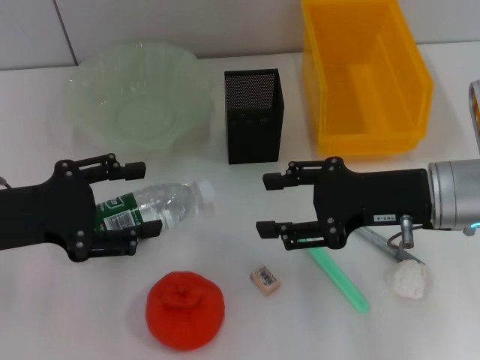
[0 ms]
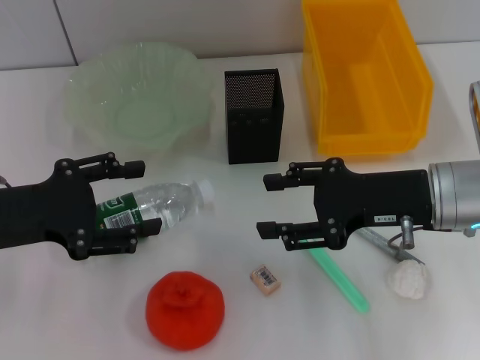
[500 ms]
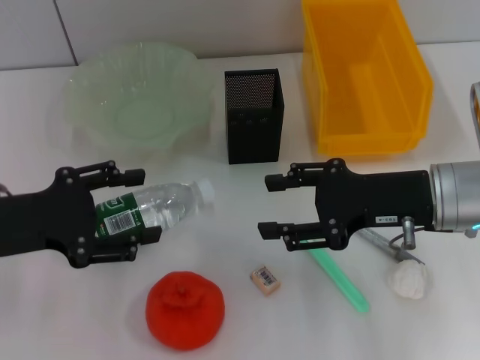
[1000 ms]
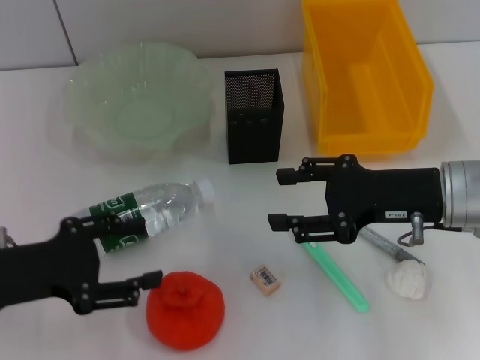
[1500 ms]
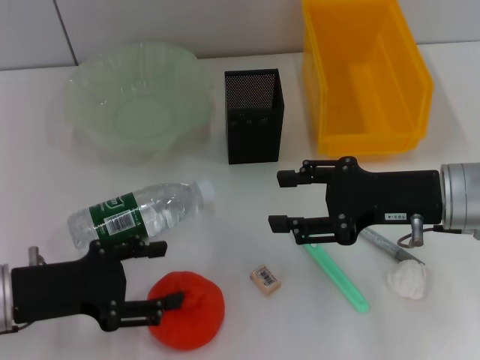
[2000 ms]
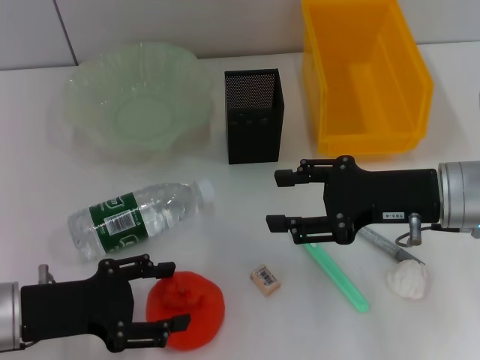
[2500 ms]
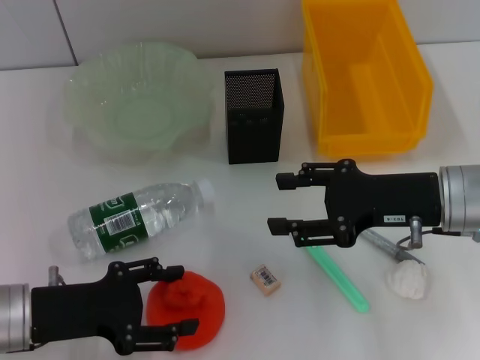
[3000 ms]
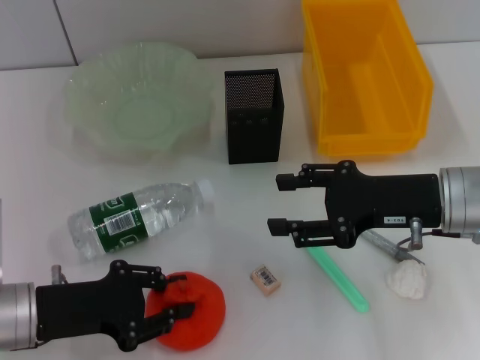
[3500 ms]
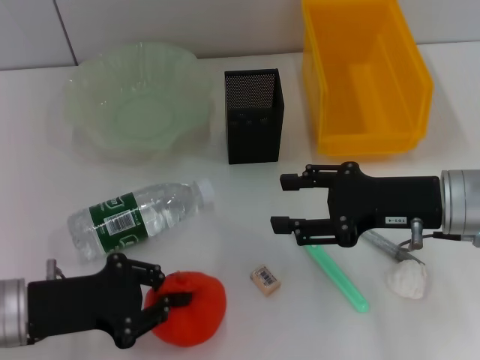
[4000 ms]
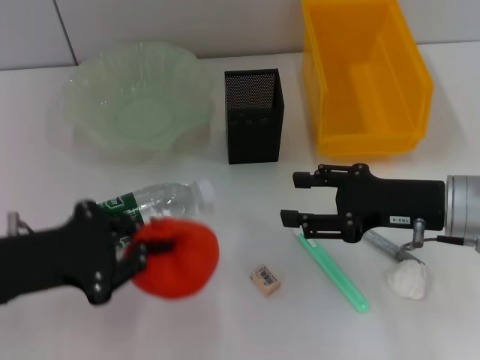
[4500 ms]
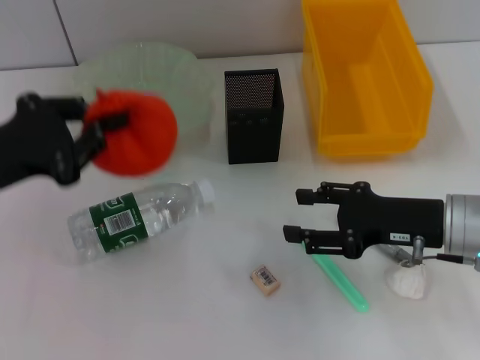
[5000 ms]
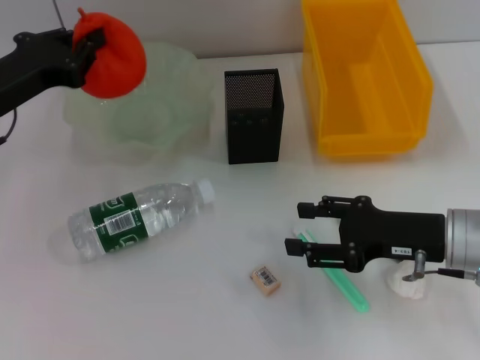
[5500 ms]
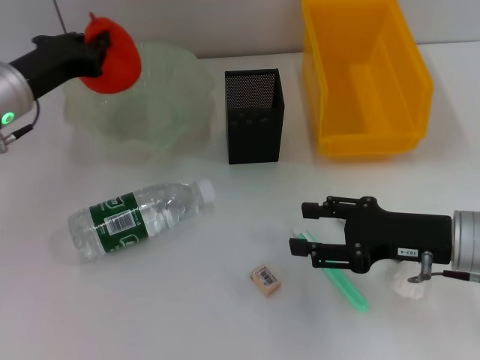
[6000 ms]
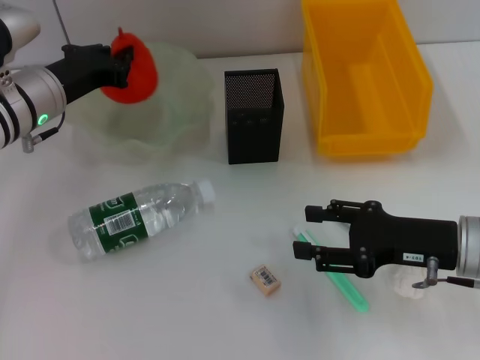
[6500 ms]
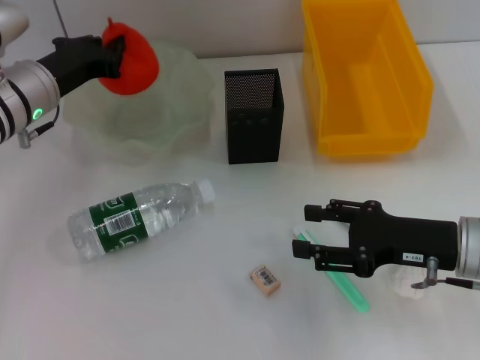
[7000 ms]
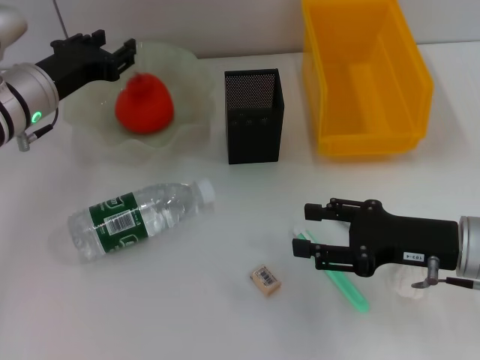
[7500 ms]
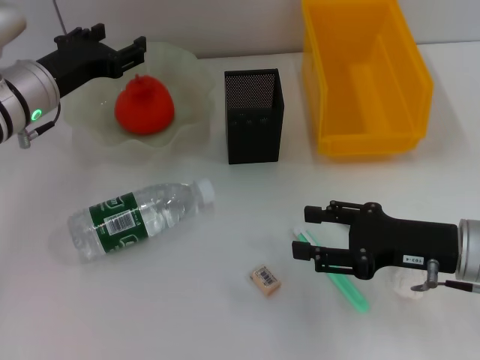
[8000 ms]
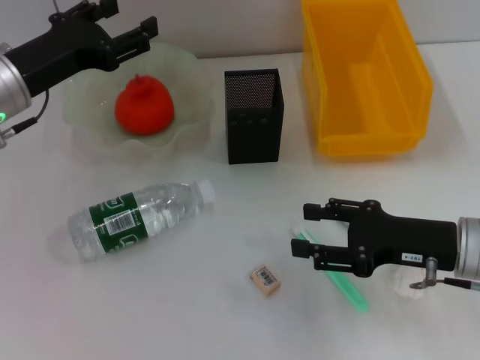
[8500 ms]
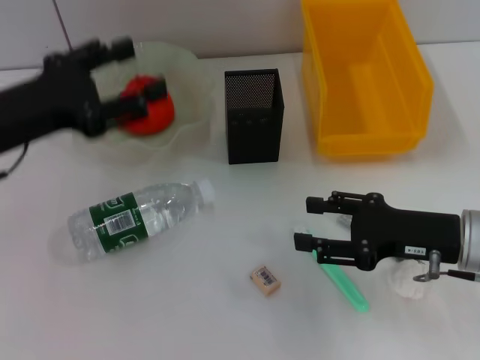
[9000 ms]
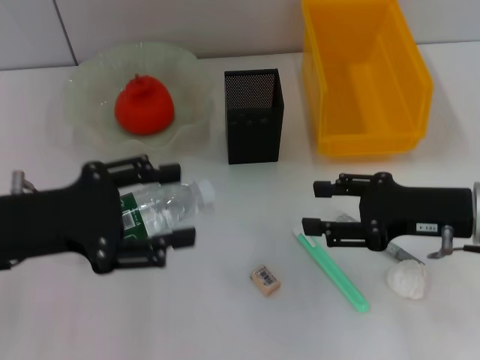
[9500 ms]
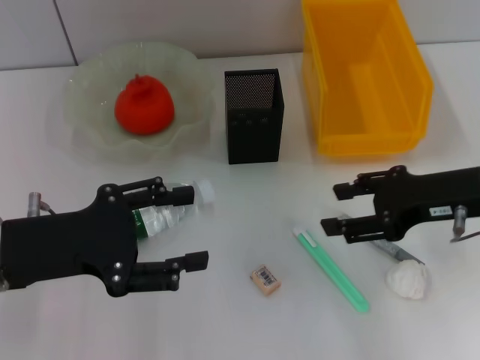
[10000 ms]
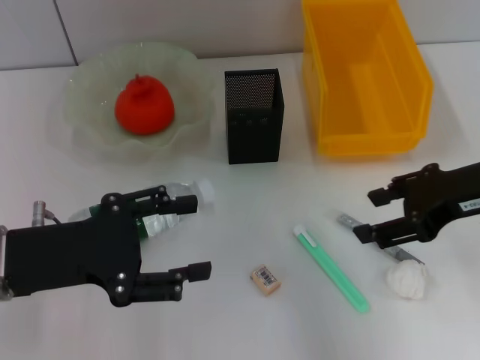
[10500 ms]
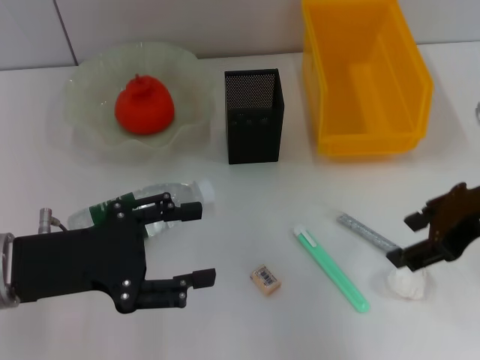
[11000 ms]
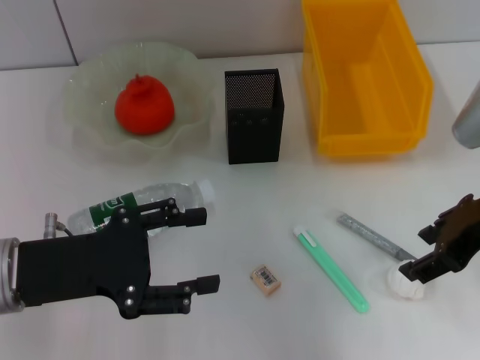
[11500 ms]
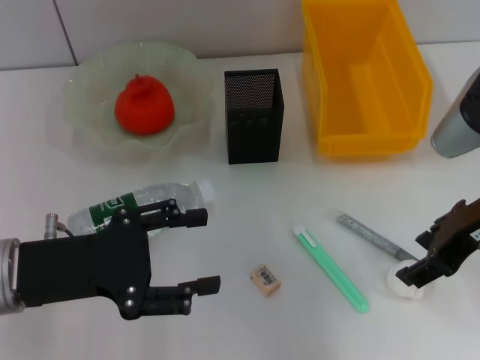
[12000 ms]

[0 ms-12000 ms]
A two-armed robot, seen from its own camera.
Step, 0 ms to 3500 ms: Grab the orange with the left hand.
Step, 4000 ms to 7500 ms: Place the orange into the fruit bowl with the left hand.
0 ms to 2000 ms: The left gripper heads downward, covering about 5 cm.
2000 ms to 4000 ms: The left gripper closes its fingers.
4000 ms to 6000 ms: The left gripper is displaced forward by some 15 cm. Meanwhile the right gripper moves roughly 5 cm.
6000 ms to 8000 ms: The left gripper opens.
8000 ms to 10000 ms: The left gripper shifts approximately 15 cm backward, while the right gripper heads upward, covering approximately 5 cm.

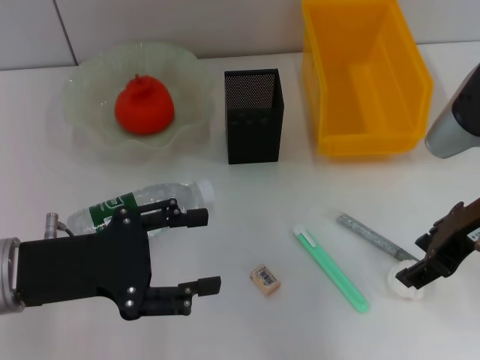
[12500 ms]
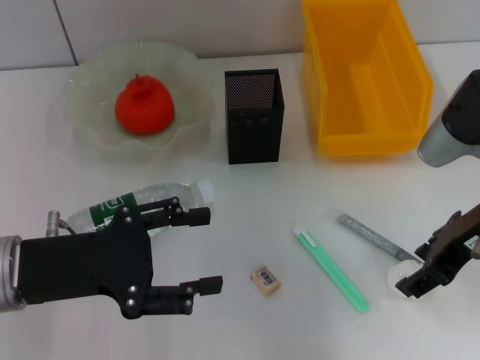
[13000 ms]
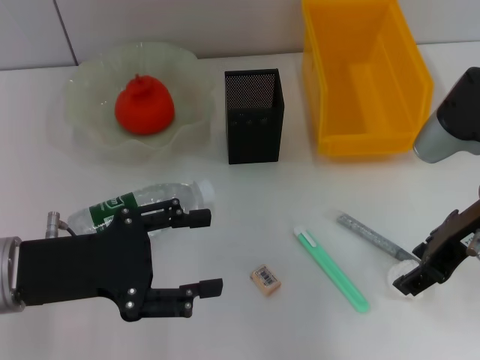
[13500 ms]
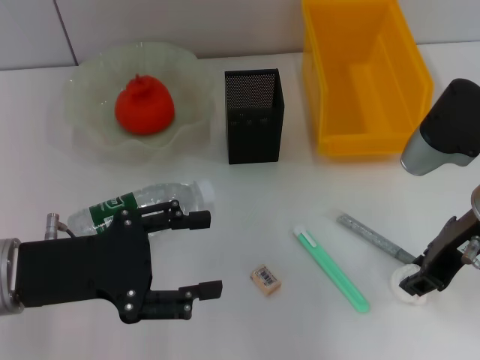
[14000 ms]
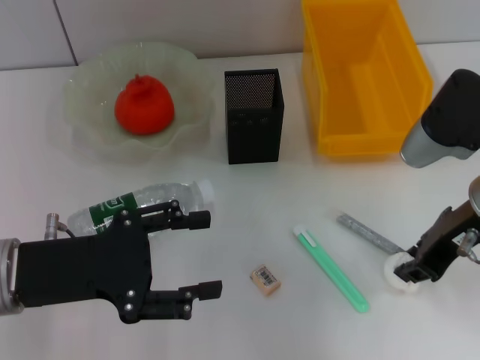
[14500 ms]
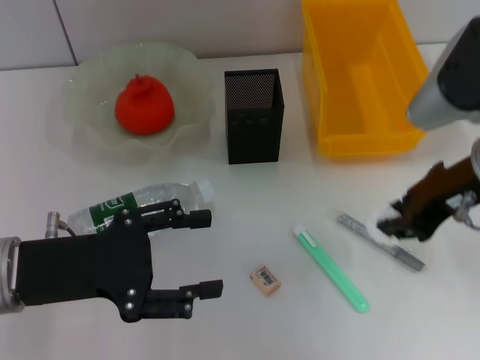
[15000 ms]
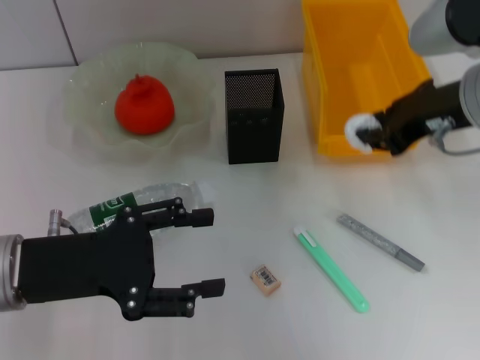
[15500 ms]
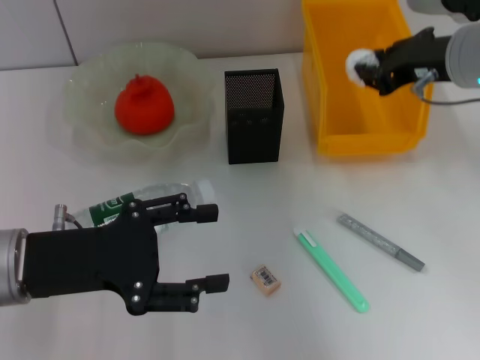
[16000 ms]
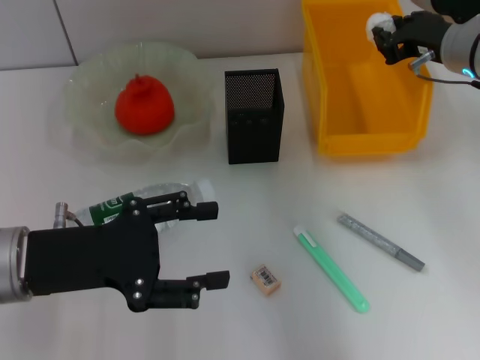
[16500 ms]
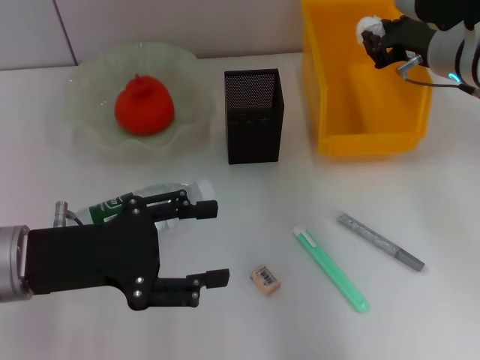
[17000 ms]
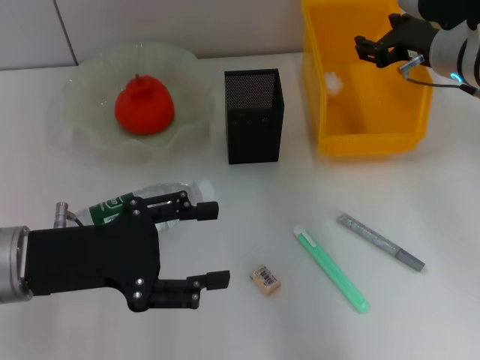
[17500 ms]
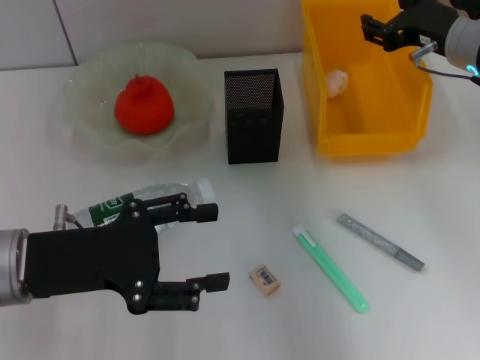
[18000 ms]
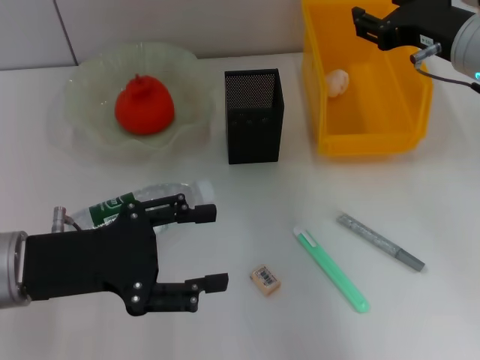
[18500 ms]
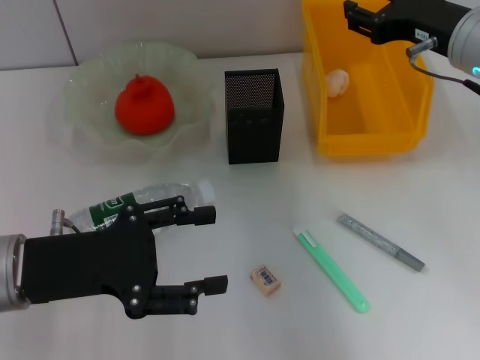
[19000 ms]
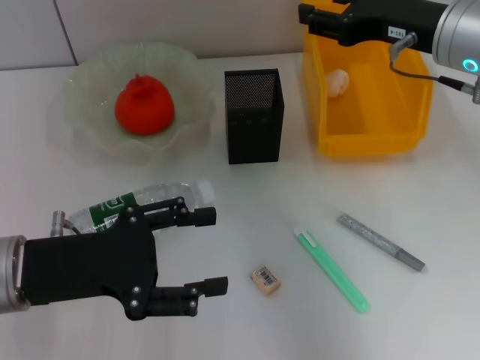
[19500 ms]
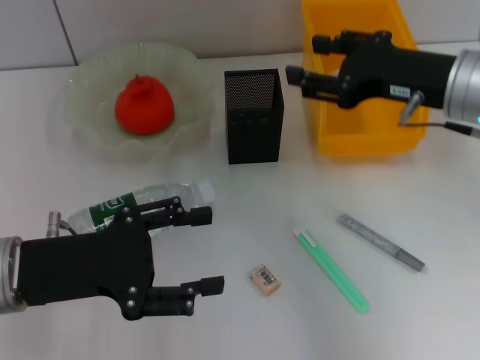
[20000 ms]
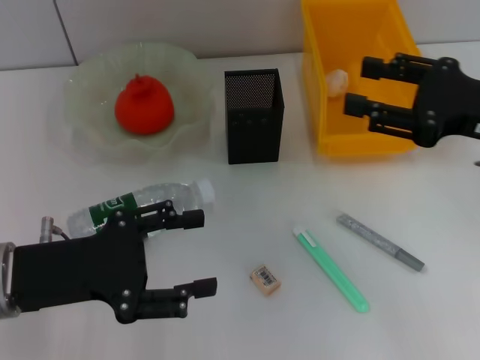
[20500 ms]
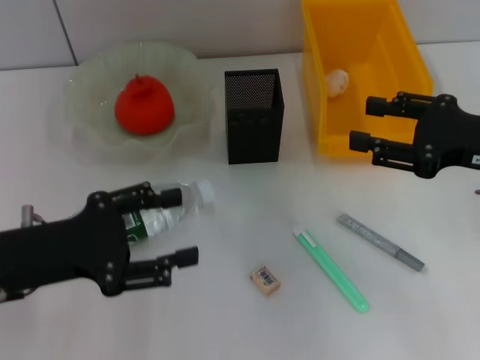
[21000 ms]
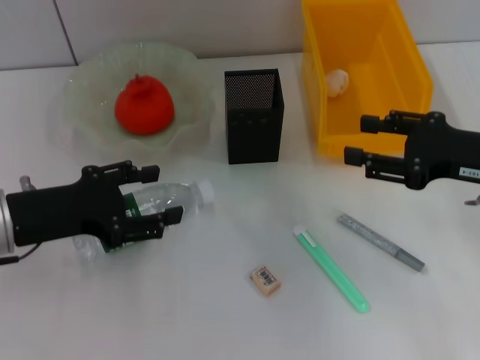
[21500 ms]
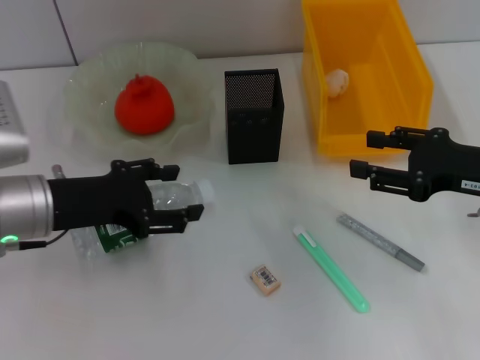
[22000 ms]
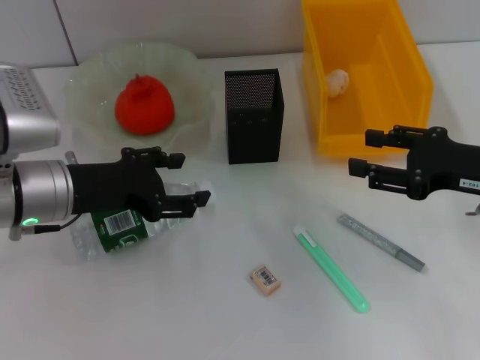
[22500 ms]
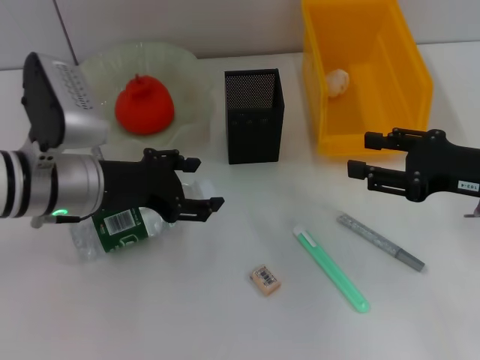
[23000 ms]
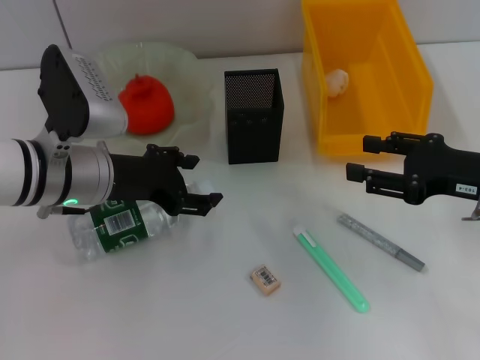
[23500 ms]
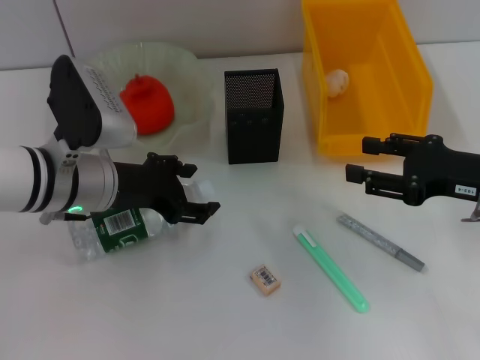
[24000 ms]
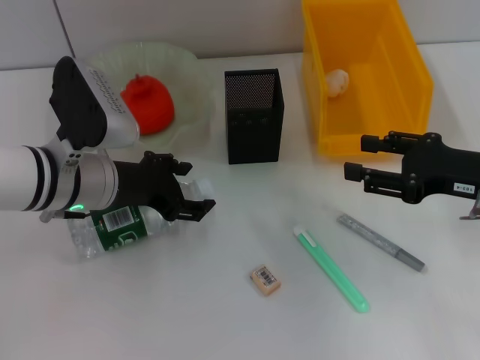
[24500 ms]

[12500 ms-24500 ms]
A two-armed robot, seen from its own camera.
Step, 14500 ms to 17500 ms: Place the paper ball into the trash can with the right hand.
12500 ms to 14500 ms: The right gripper closes.
14500 ms to 16500 ms: The right gripper travels forward by approximately 10 cm.
16500 ms to 18500 ms: The right gripper shifts by approximately 5 cm, and opens its fingers.
18500 ms to 20500 ms: The right gripper shifts roughly 10 cm backward and to the right.
20500 ms to 22500 ms: The right gripper travels downward by about 5 cm; the left gripper shifts some 10 cm forward.
22500 ms to 24500 ms: The grippers move only a little.

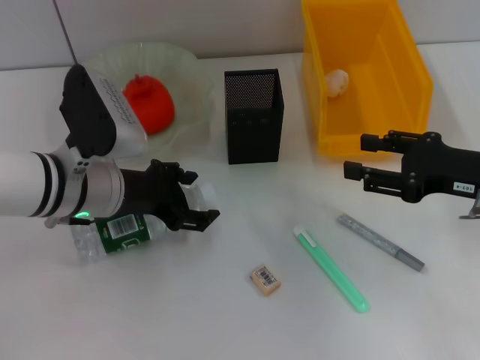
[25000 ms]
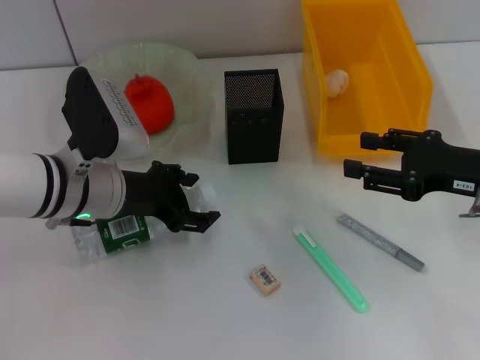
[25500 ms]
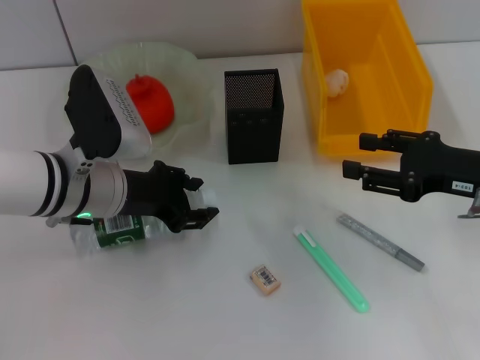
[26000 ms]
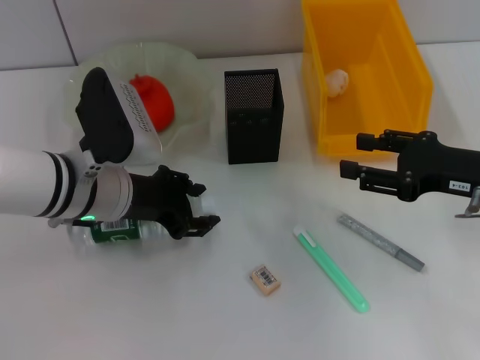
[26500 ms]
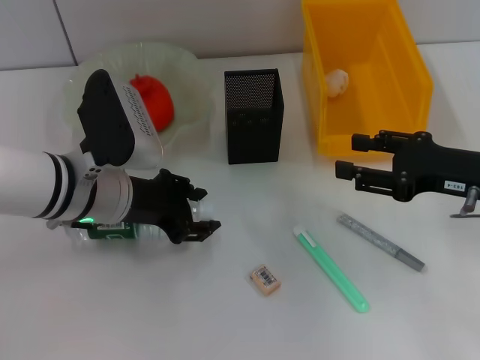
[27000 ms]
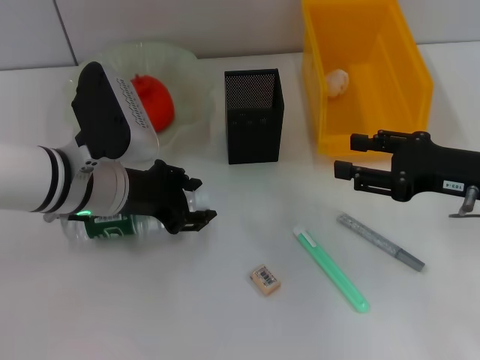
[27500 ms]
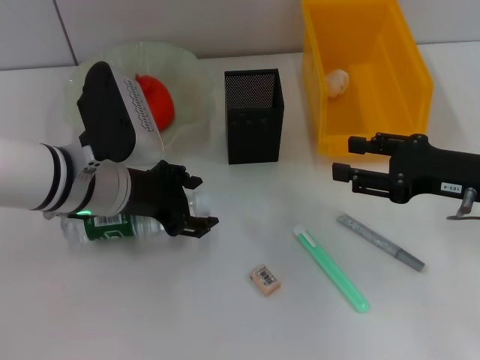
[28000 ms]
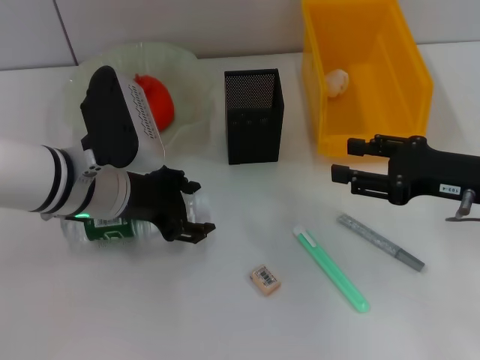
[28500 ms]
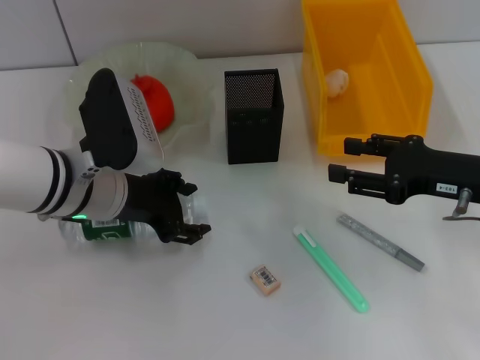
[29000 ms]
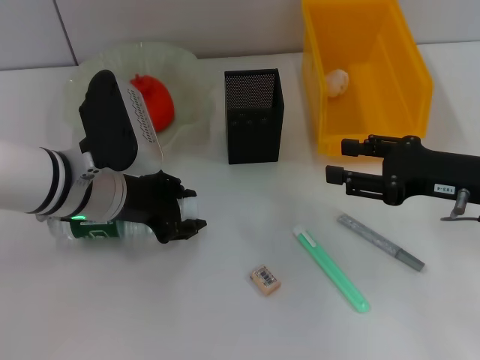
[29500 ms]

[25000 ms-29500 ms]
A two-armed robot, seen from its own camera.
25000 ms to 29500 ms: There are only small adjustments of the grippers.
